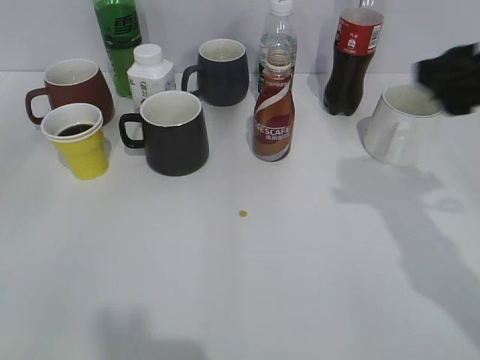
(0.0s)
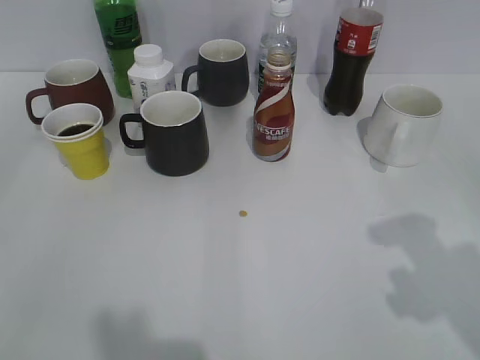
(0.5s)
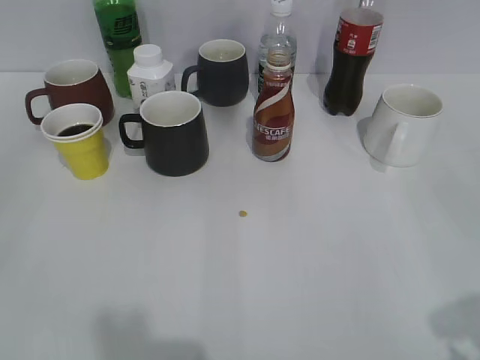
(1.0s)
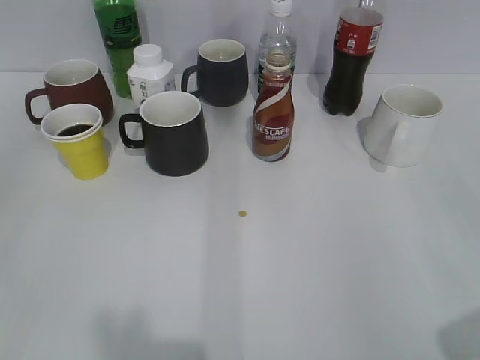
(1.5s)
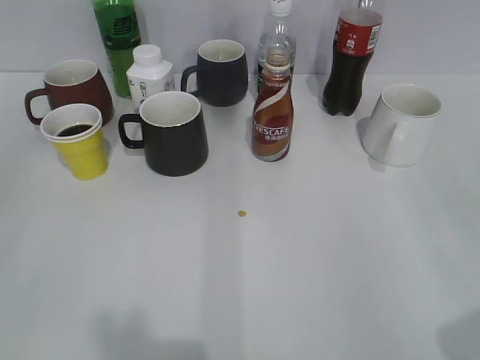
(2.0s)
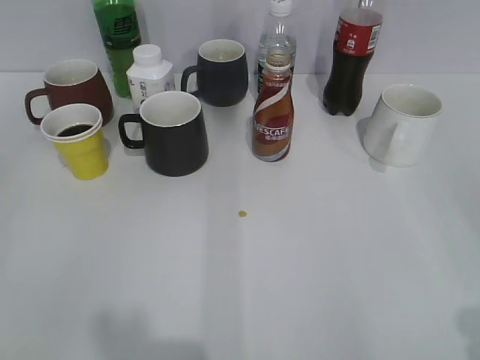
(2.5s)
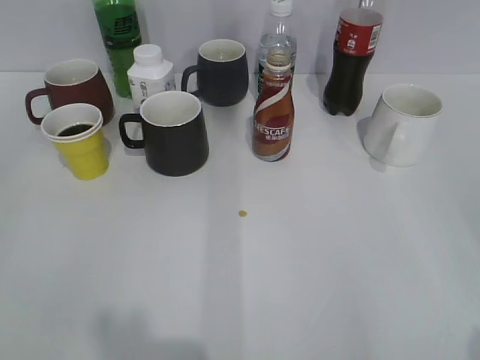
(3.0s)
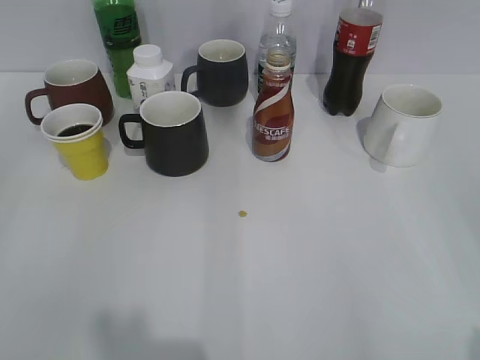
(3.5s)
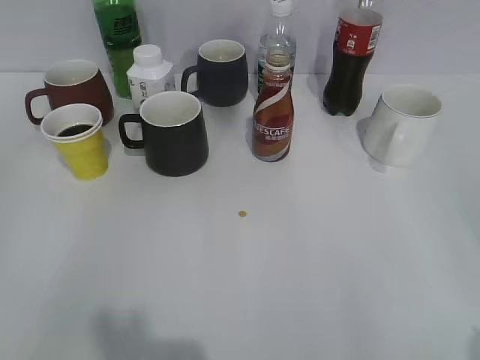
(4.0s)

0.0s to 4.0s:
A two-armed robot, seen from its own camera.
0.0s to 2.0s: The right gripper moves backward, roughly 20 cm.
